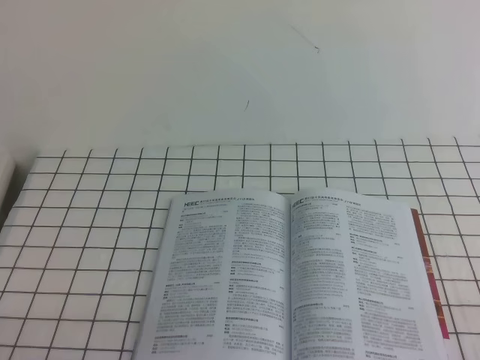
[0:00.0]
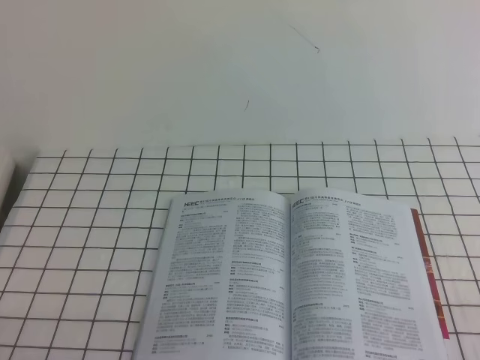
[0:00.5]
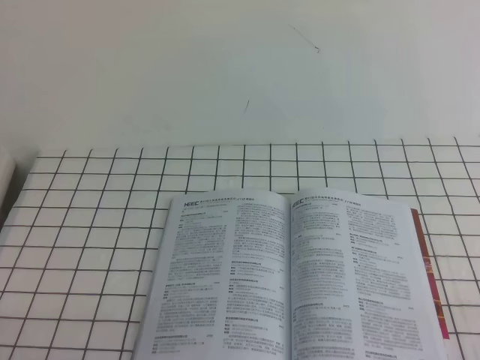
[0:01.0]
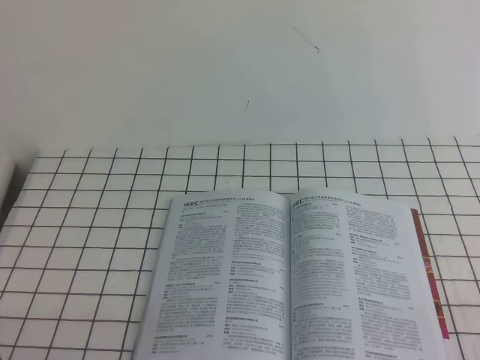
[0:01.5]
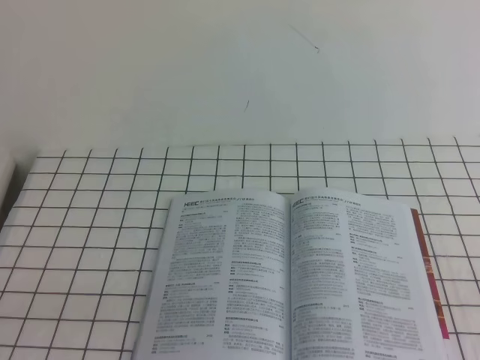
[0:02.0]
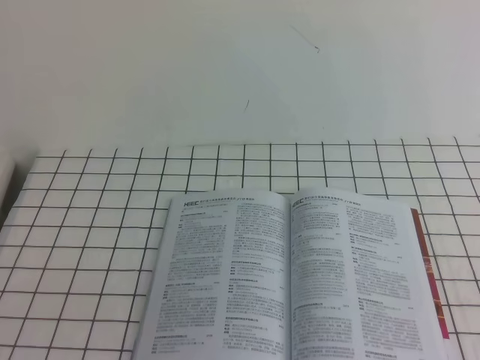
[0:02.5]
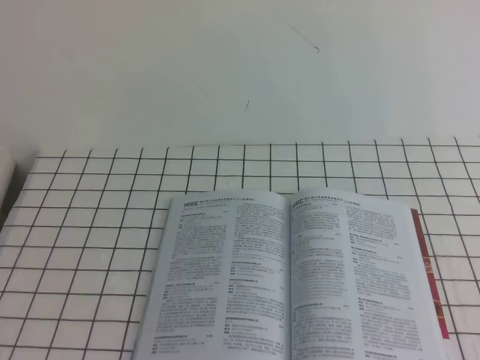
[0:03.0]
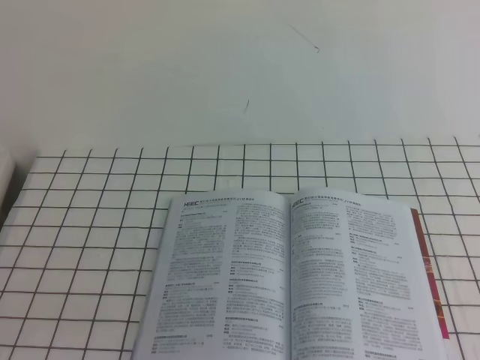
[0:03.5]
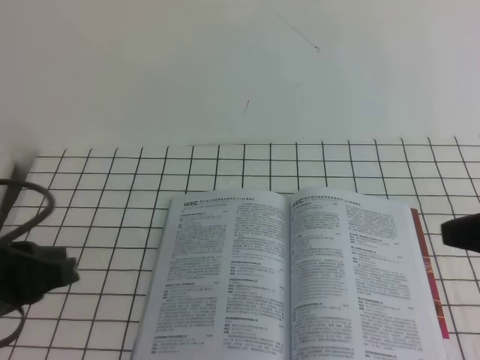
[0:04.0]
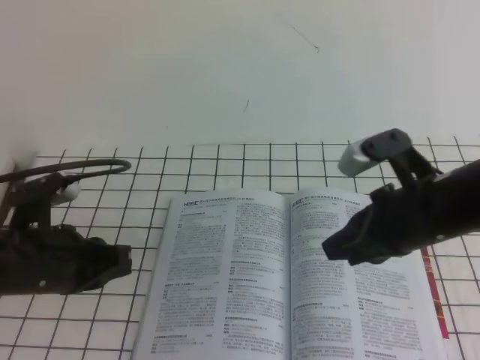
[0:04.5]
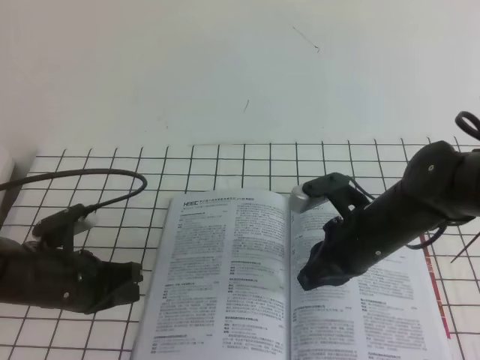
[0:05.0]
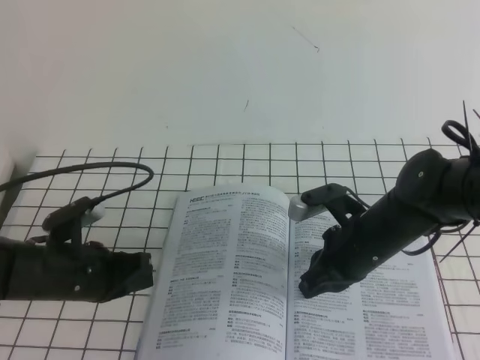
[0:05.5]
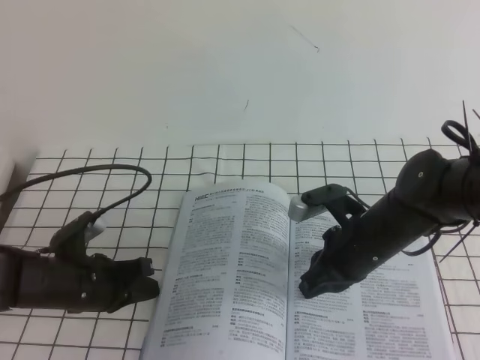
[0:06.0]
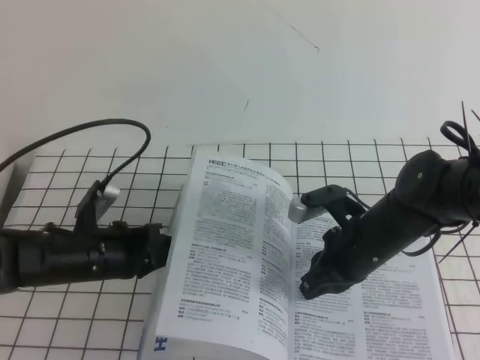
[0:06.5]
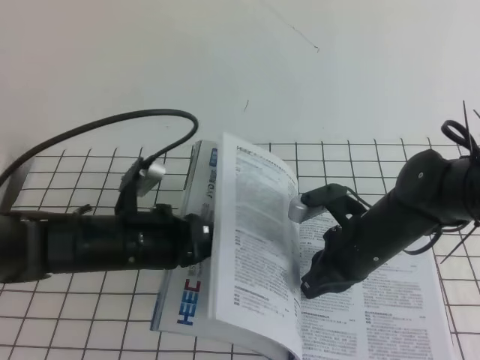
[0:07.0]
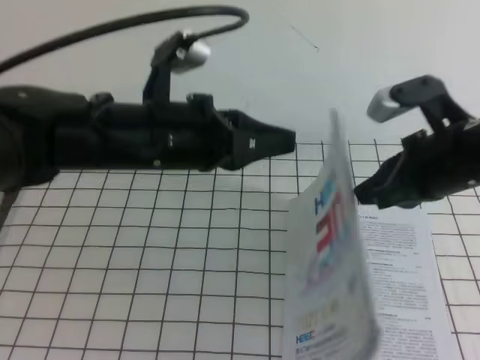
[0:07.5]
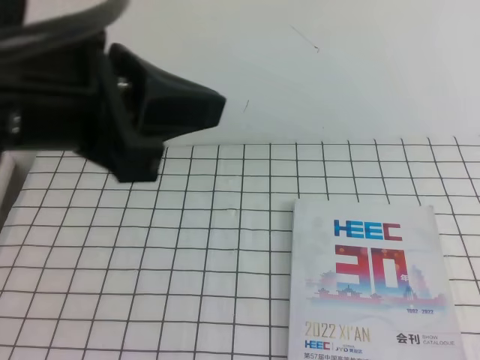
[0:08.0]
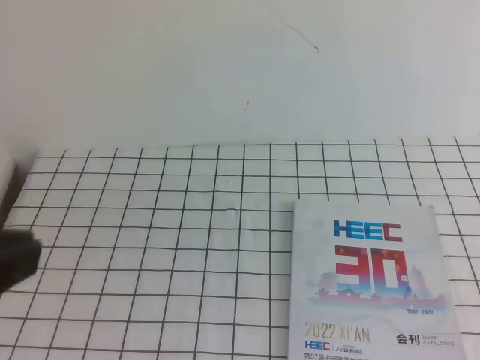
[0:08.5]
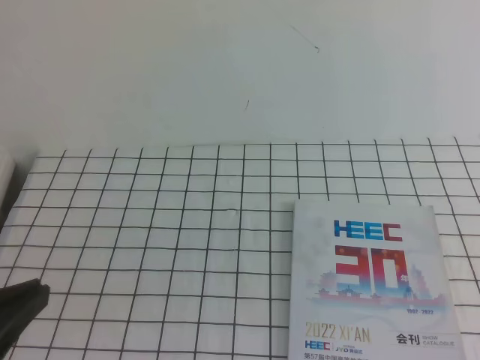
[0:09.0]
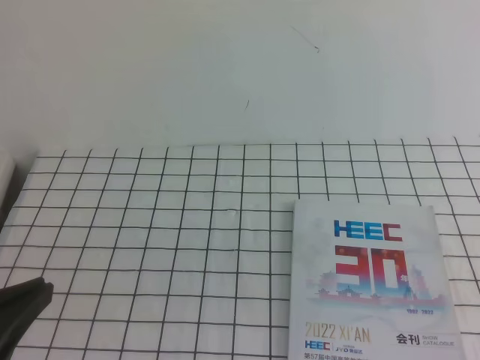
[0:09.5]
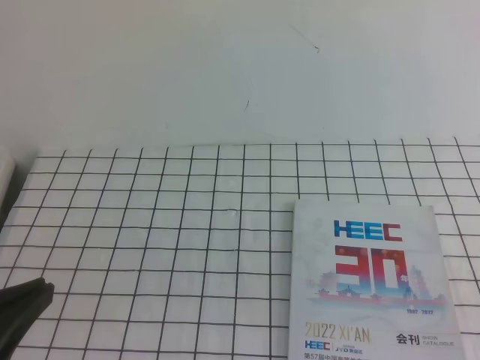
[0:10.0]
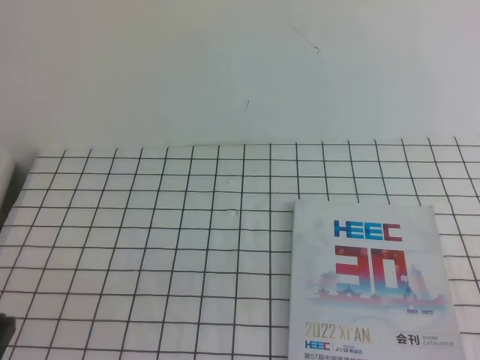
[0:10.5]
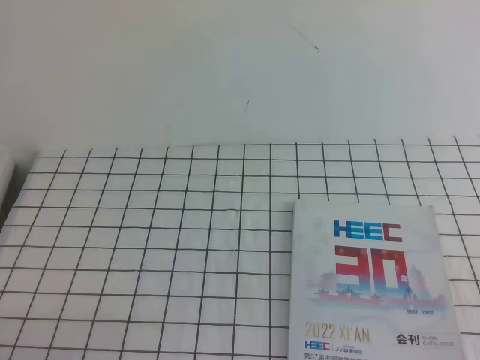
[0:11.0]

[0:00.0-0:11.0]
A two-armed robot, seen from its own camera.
Task of the whole recording: on the white tablecloth, hold the book with one hand and close it with the other.
0:03.5 to 0:05.5: The right gripper goes some 35 cm downward, to the left and forward; the left gripper shifts about 30 cm forward and downward.
0:05.5 to 0:07.5: The two grippers go some 20 cm upward and to the right.
0:07.5 to 0:09.0: The right gripper shifts about 25 cm backward and to the right, while the left gripper goes about 25 cm backward and to the left.
0:09.0 to 0:11.0: The left gripper travels downward by approximately 15 cm.

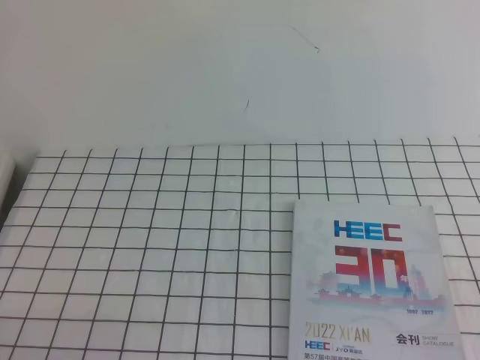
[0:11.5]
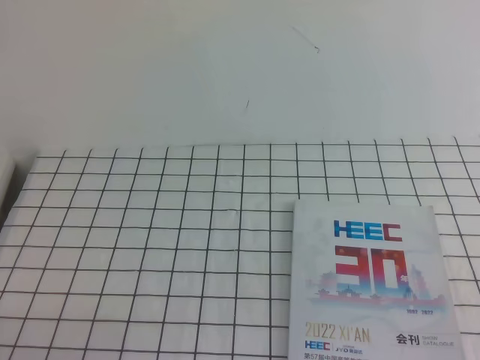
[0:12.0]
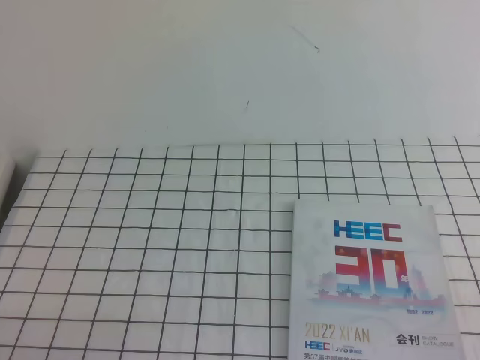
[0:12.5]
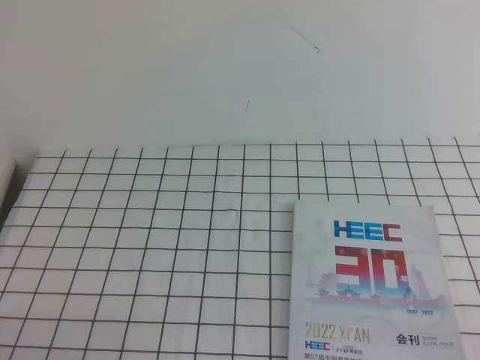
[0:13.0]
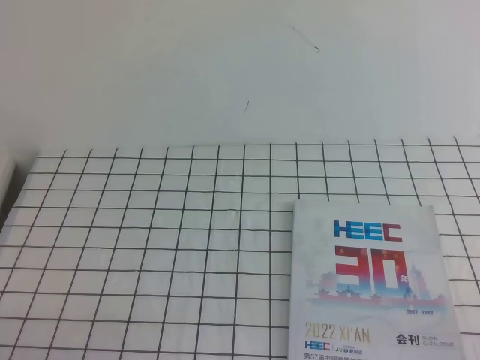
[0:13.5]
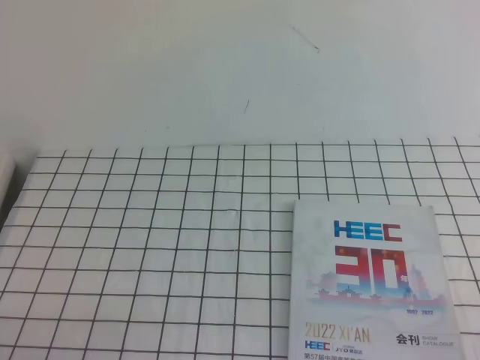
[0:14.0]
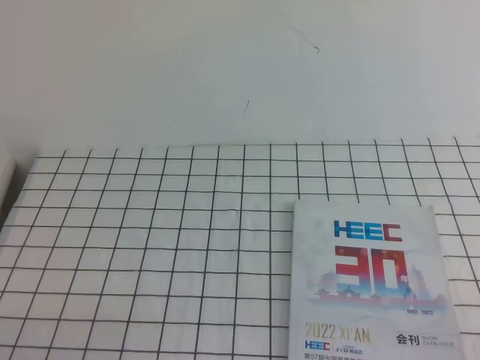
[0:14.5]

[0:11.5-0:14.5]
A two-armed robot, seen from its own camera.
Task of the whole recording: on the white tablecloth, hold the book with one hand and close it with the other.
0:13.0 to 0:14.5: Both grippers stay about where they are.
